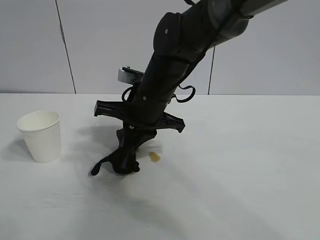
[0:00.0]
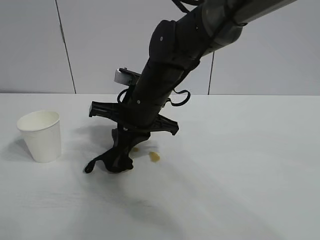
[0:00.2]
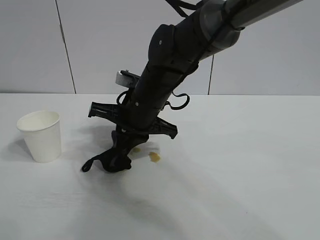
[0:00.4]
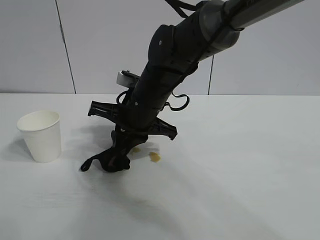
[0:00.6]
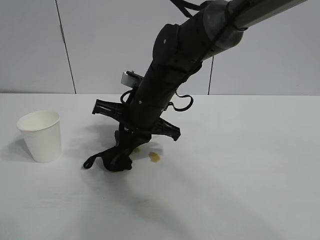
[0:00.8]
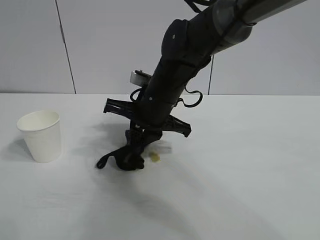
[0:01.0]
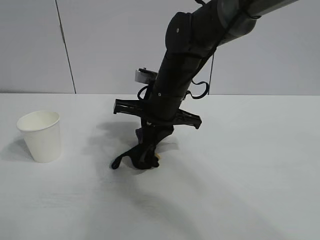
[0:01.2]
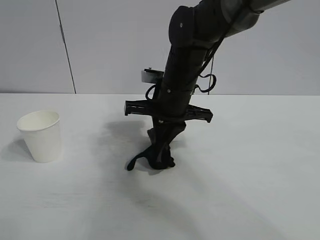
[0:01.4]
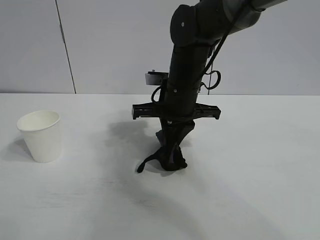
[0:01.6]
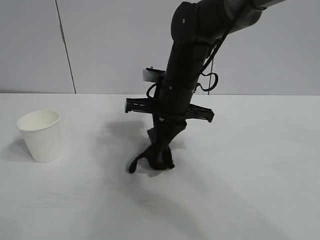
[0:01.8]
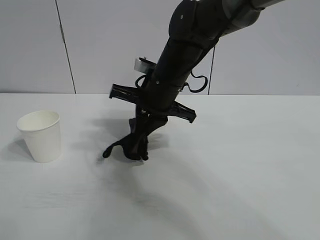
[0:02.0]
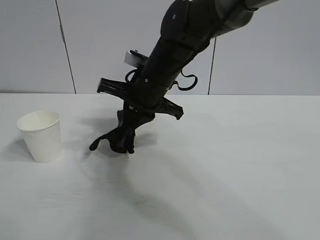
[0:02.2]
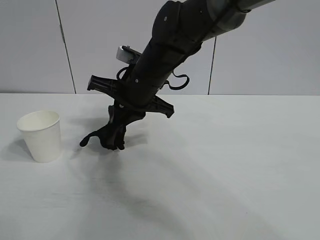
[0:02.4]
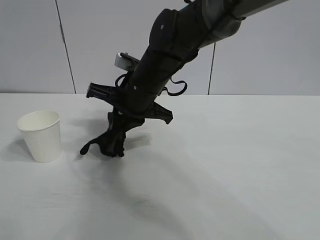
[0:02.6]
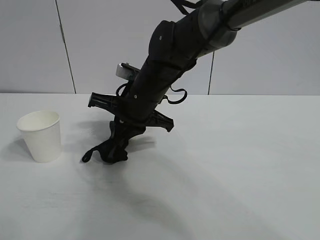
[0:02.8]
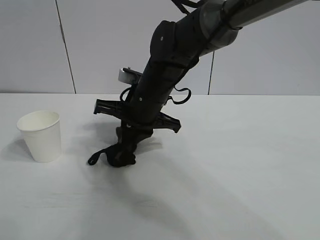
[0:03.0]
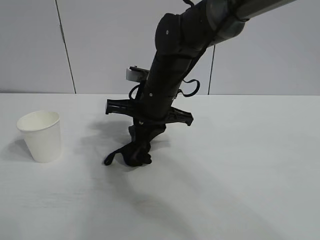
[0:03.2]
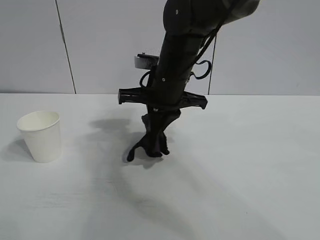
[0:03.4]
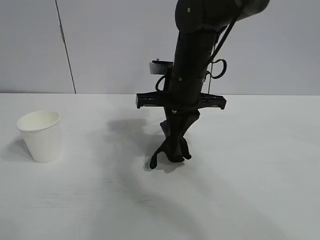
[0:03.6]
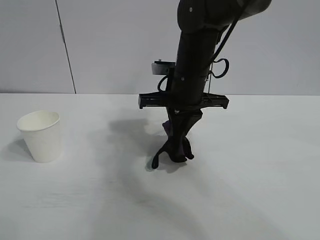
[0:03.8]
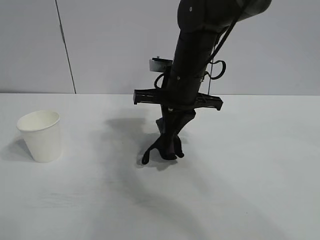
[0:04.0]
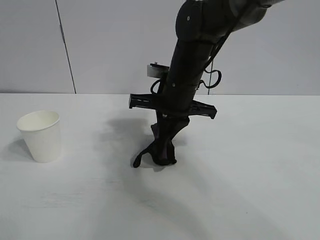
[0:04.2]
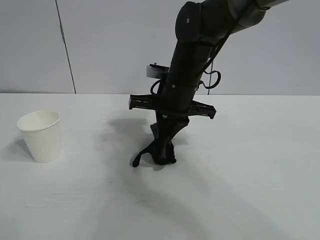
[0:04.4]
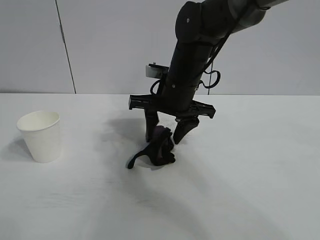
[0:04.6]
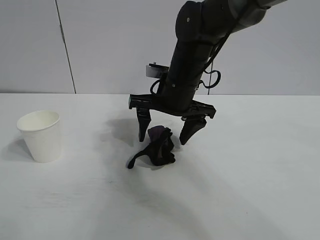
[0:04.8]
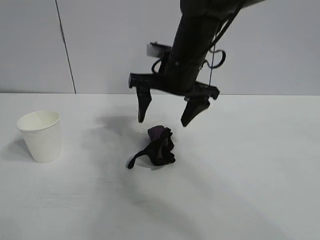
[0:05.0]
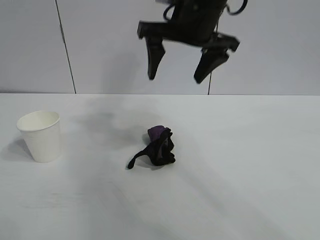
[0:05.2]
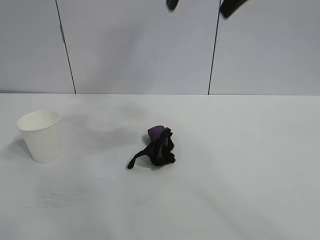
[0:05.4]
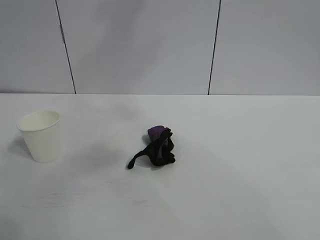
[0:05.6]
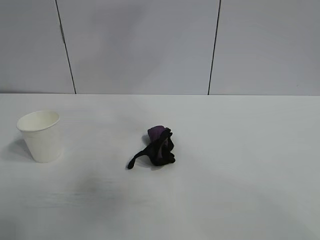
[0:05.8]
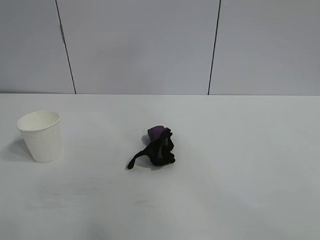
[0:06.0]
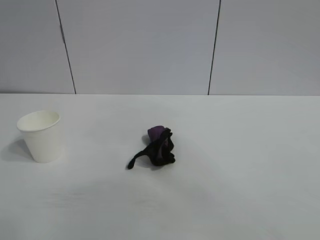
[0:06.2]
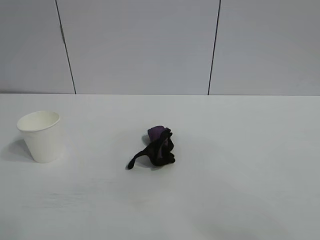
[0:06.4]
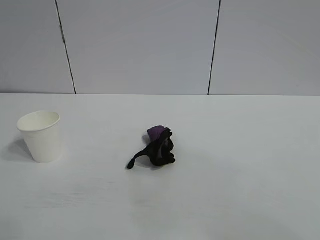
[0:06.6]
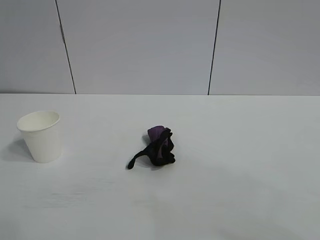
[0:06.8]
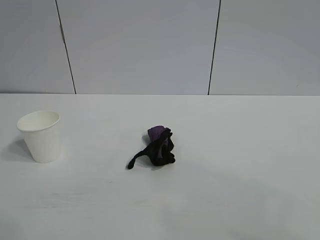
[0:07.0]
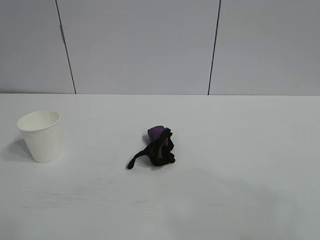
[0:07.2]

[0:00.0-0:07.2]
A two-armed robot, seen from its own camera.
Task of the whole recording: the left gripper pick up the fallen cup and place it upright, the right gripper grasp the black rag and wipe the stain on the table, the right gripper put the black rag back in its original position.
Step, 0:00.0 to 0:03.0: Wipe the stains off the table with the rag with right gripper.
Step, 0:03.2 to 0:04.4: Place the rag on the table with right gripper.
